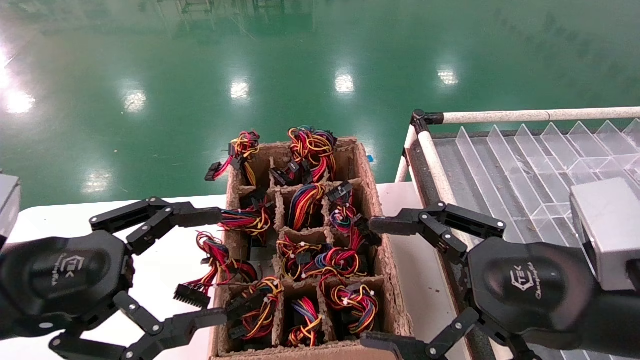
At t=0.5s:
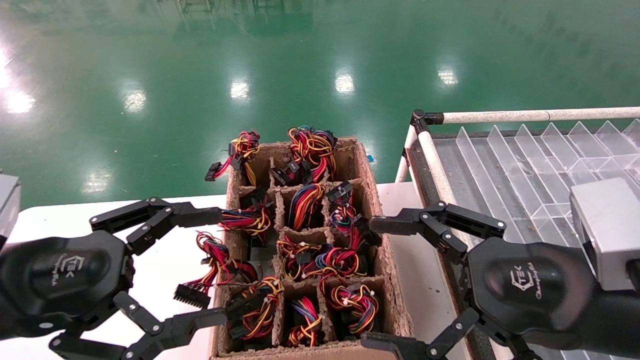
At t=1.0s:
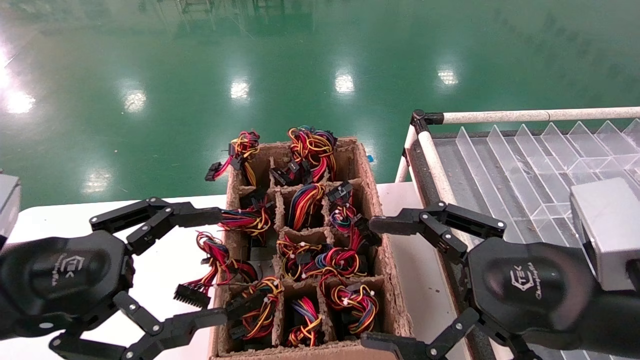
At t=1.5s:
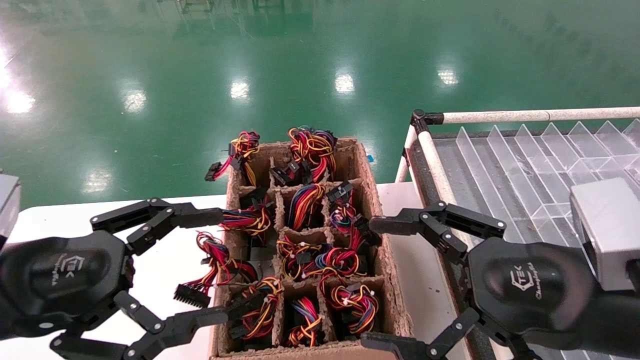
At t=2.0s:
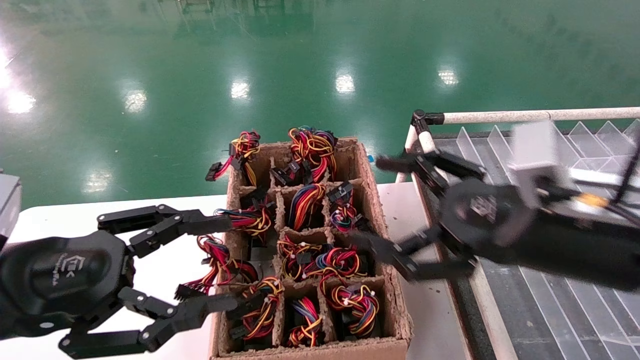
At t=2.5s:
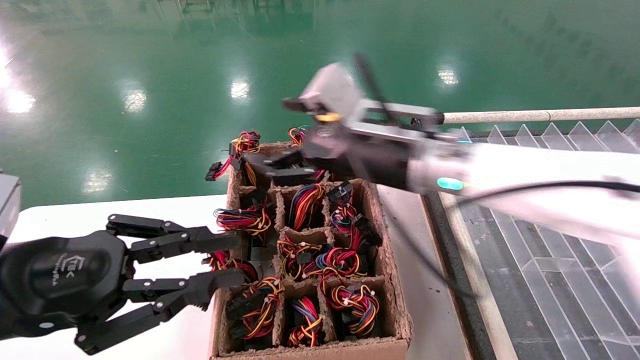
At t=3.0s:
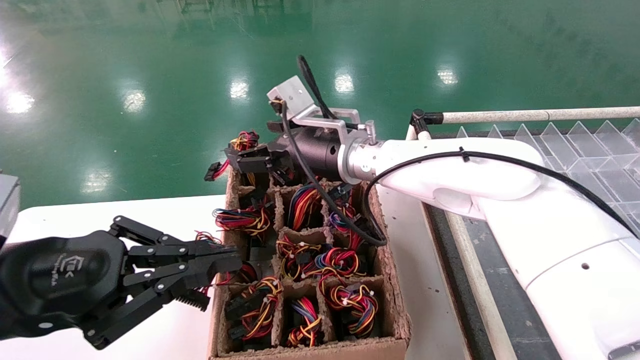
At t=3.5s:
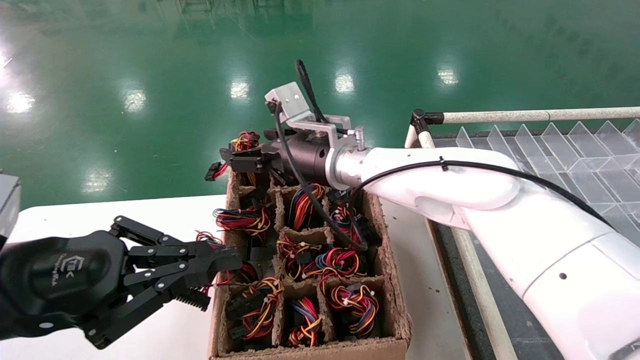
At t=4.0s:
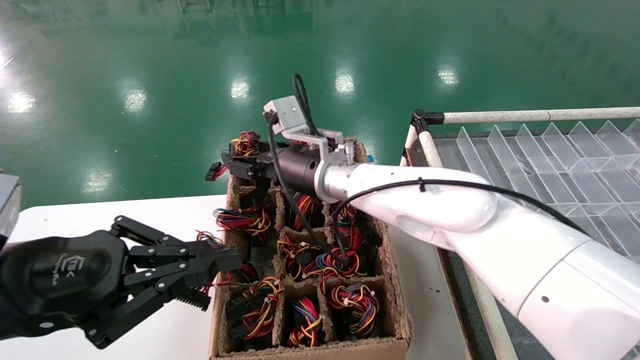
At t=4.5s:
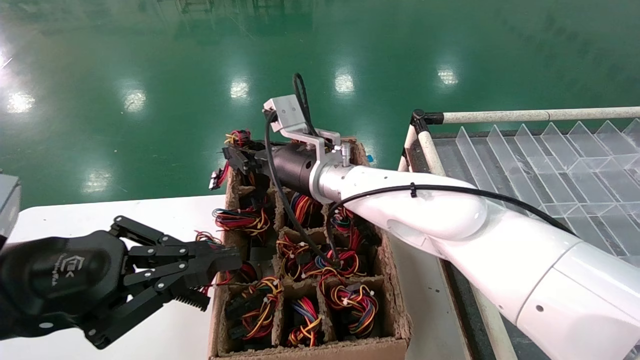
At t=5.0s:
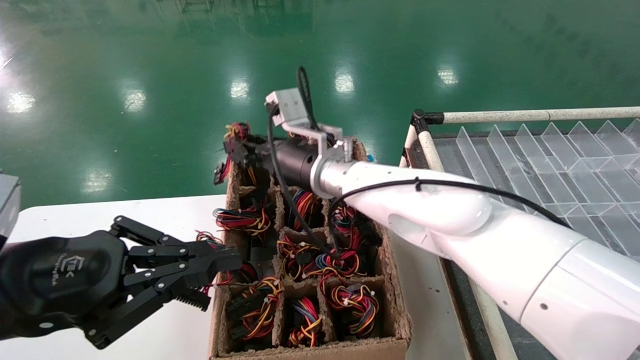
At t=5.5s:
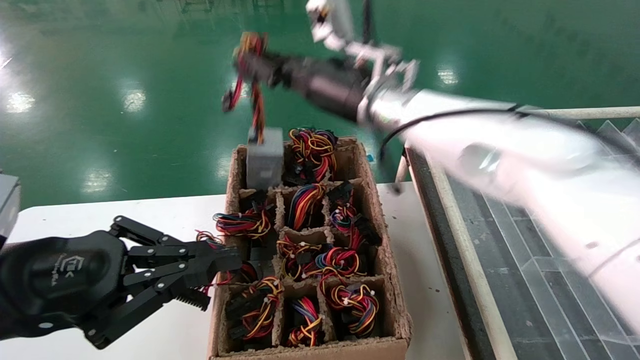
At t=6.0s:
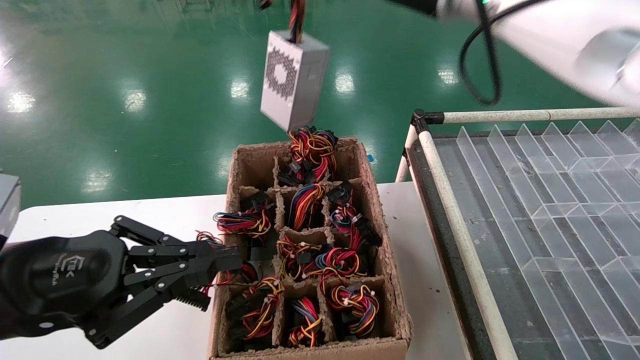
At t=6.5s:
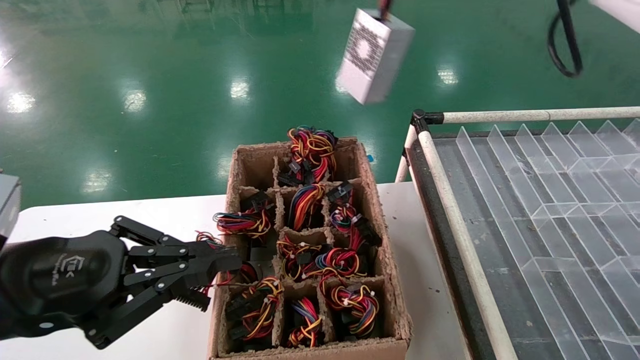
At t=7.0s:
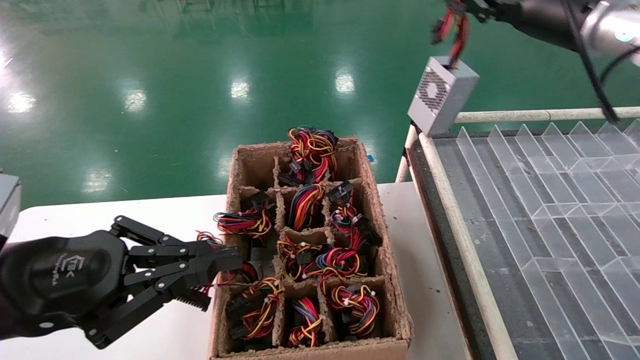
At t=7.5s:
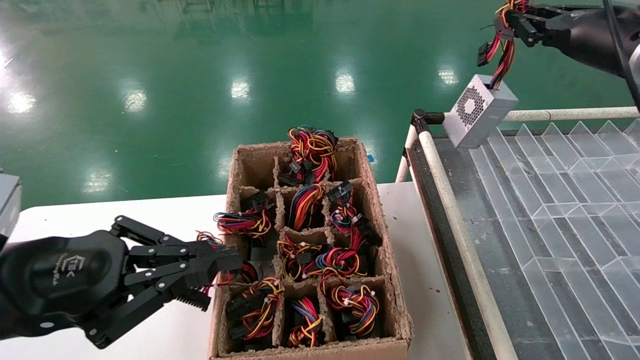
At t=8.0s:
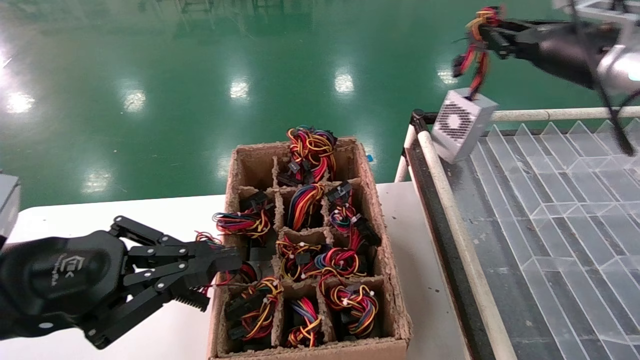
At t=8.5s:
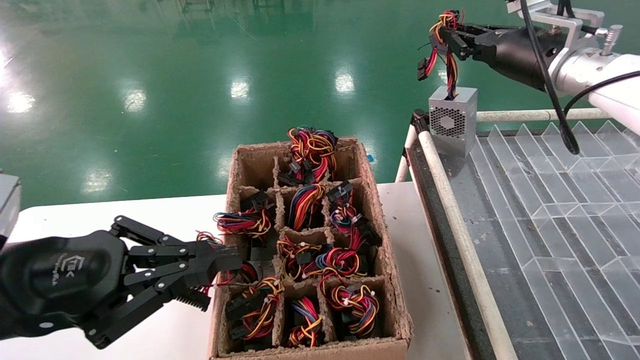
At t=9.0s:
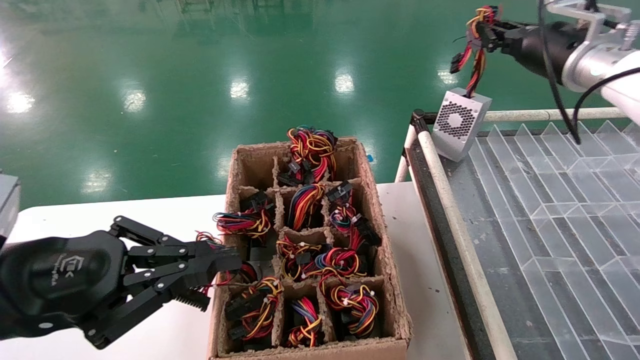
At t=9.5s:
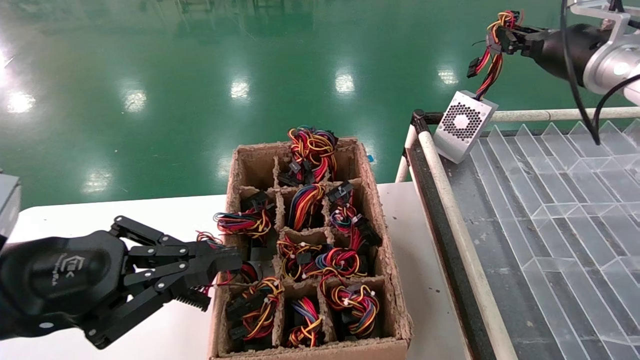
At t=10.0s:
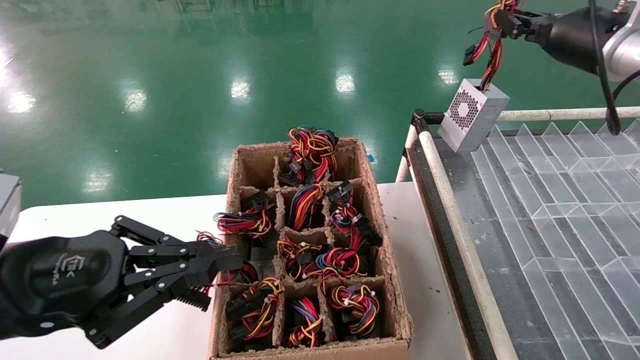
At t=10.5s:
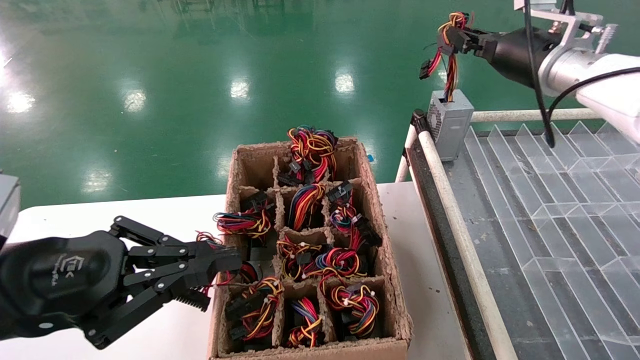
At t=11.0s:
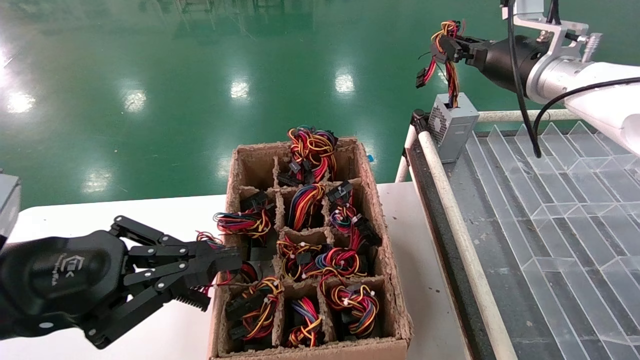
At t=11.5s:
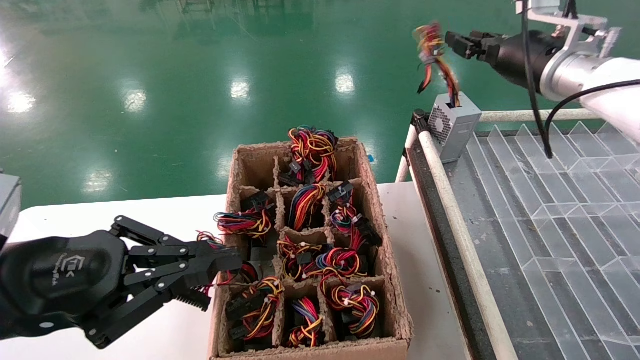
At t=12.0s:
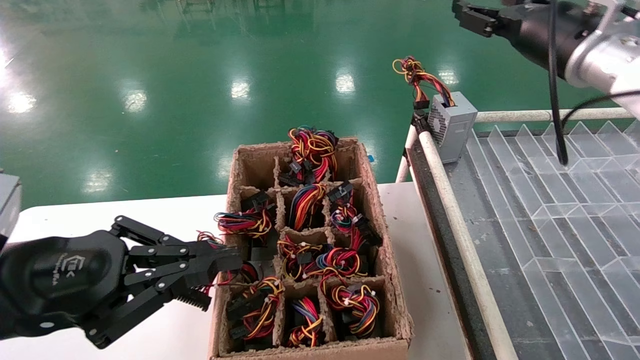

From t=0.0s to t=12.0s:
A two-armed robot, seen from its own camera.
Step, from t=2.5s to t=4.5s: Grab the main unit power supply from the containment box.
Step, from t=5.0s to t=11.5s: Place the main unit power supply in the designated area.
From t=0.0s to t=2.0s: The right gripper shifts some 5 cm forward.
From t=2.0s to t=4.0s: The left gripper closes up, while the right gripper travels to the left and forward by some 30 cm.
From t=4.0s to t=6.0s: The right gripper goes about 25 cm upward and to the right, and closes up.
From t=6.0s to t=8.0s: The right gripper goes about 25 cm to the right.
From t=8.0s to t=10.0s: The grippers move only a little.
From t=10.0s to t=12.0s: The right gripper goes approximately 5 cm to the left, and opens.

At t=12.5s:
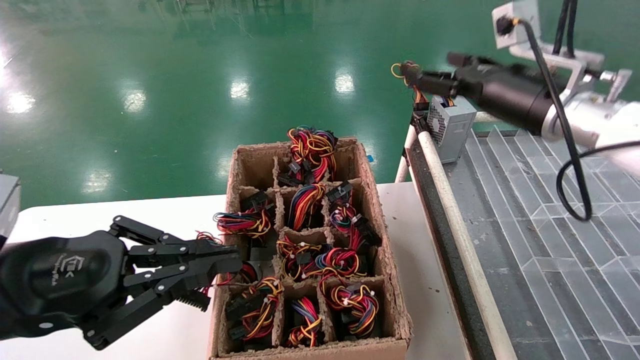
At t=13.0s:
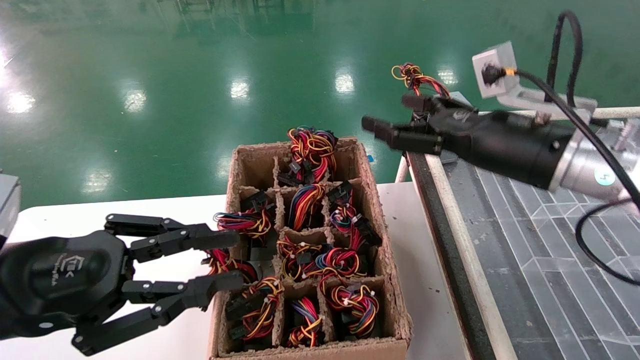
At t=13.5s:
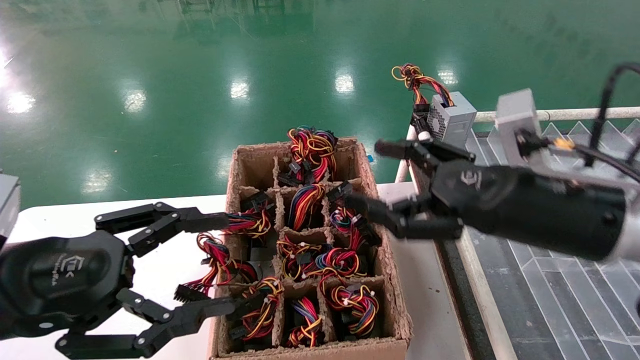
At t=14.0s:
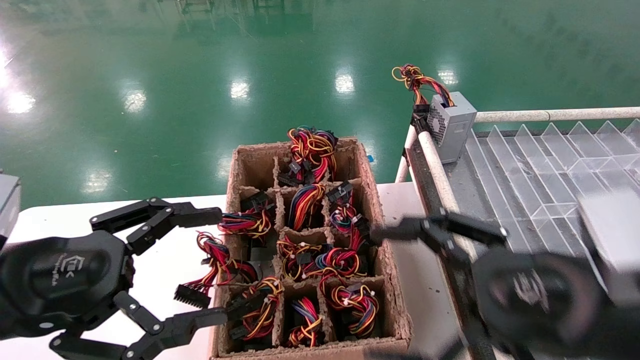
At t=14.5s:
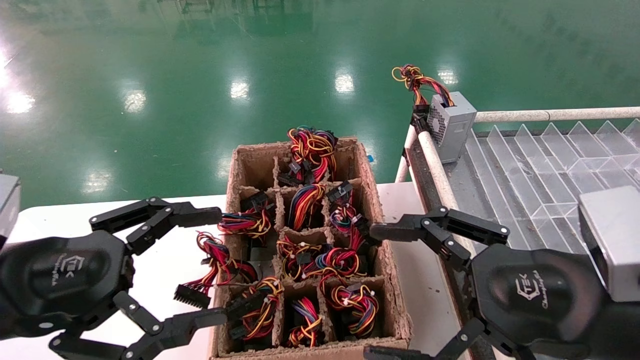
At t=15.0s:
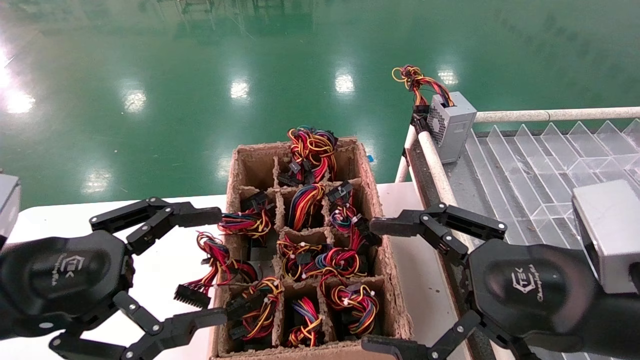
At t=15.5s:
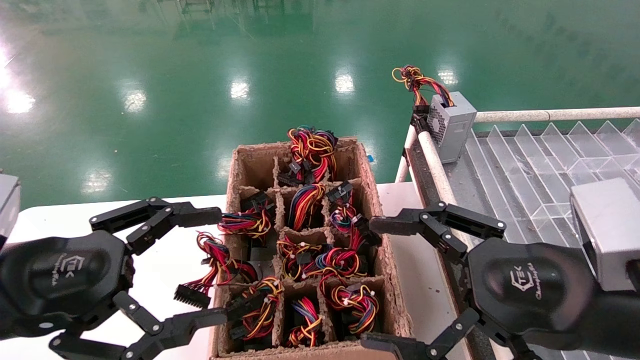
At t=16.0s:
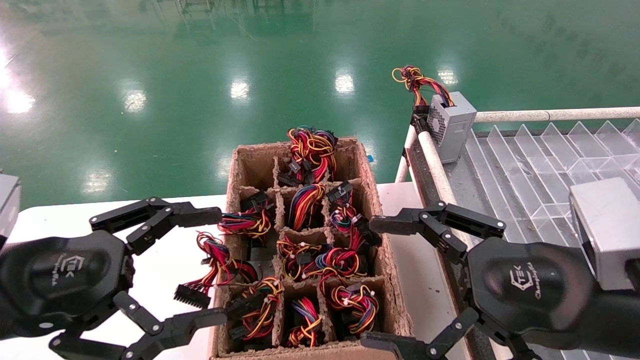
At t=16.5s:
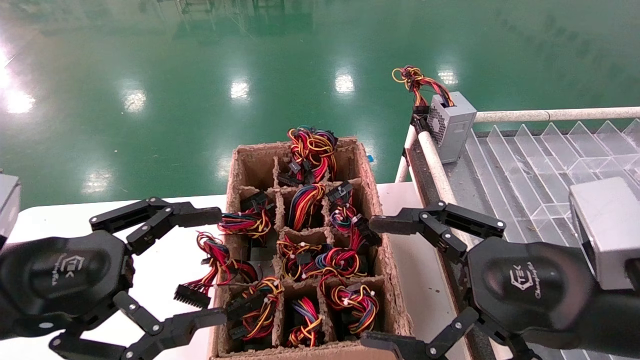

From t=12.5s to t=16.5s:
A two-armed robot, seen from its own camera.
From t=12.5s to t=14.5s: The left gripper opens; the right gripper shifts approximately 25 cm backward and downward.
From t=14.5s to t=16.5s: The two grippers keep their place.

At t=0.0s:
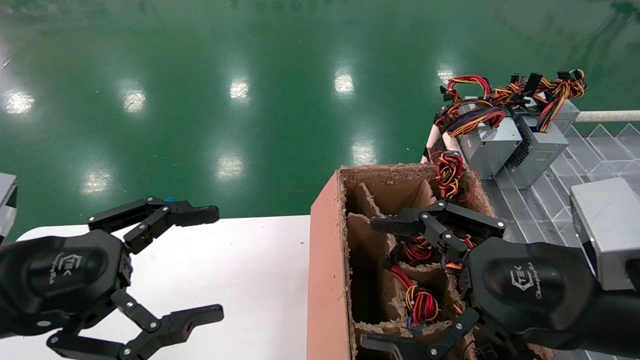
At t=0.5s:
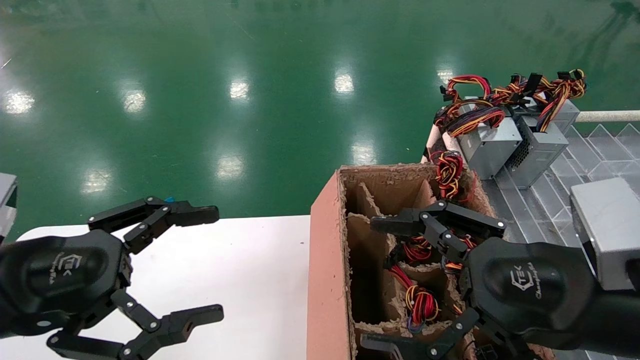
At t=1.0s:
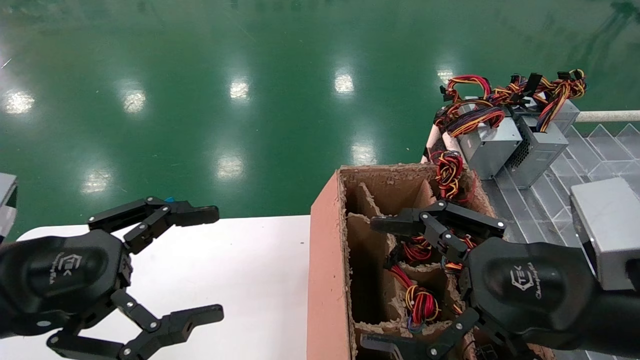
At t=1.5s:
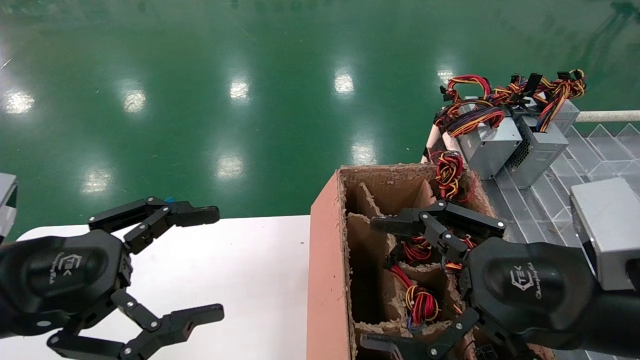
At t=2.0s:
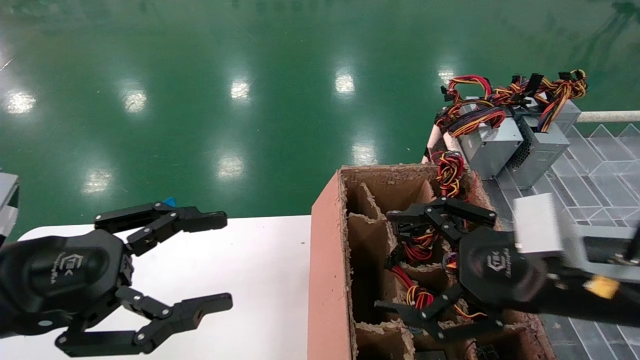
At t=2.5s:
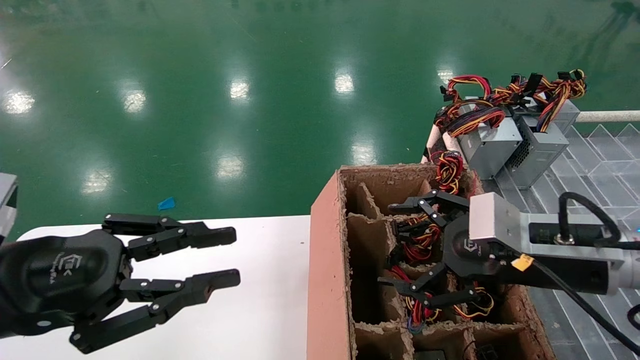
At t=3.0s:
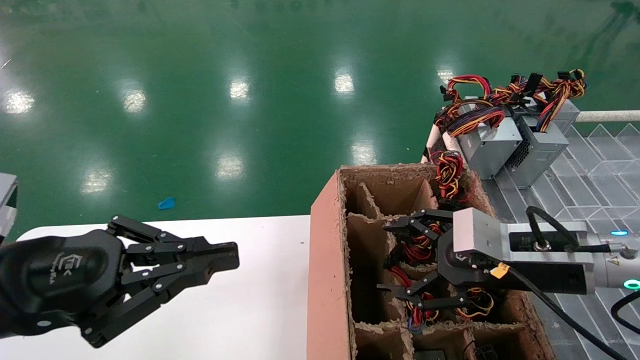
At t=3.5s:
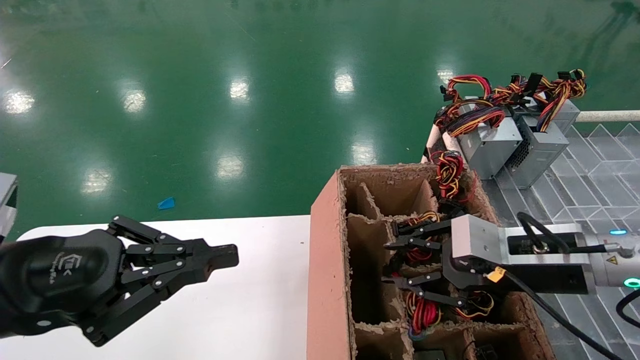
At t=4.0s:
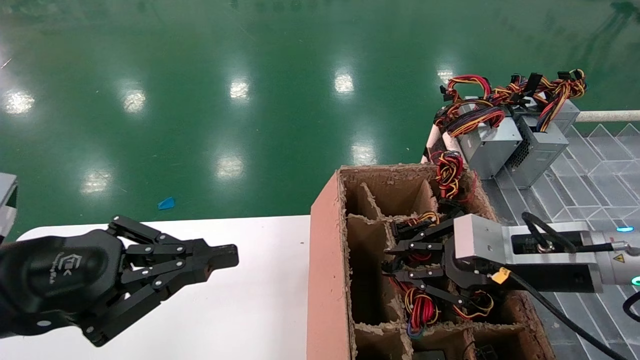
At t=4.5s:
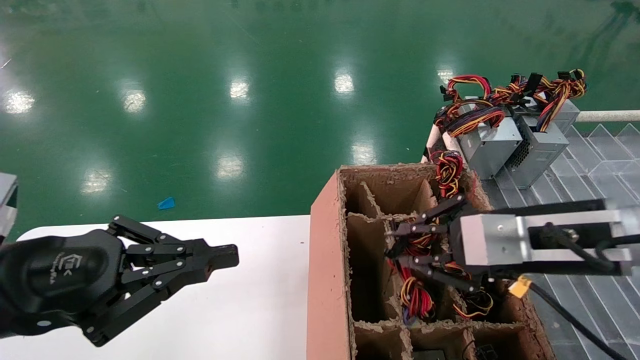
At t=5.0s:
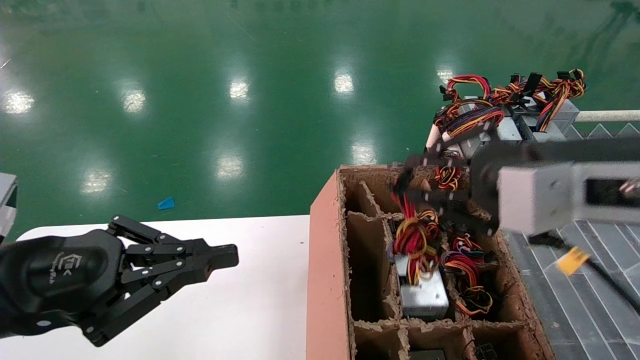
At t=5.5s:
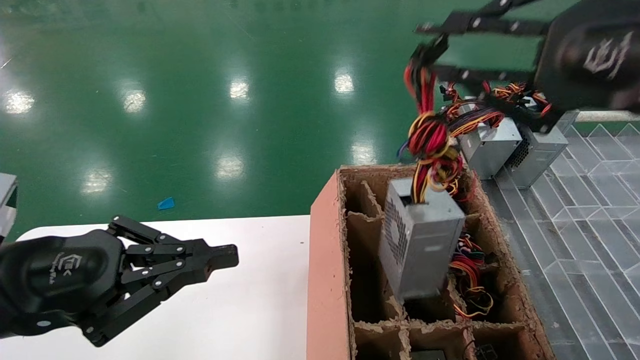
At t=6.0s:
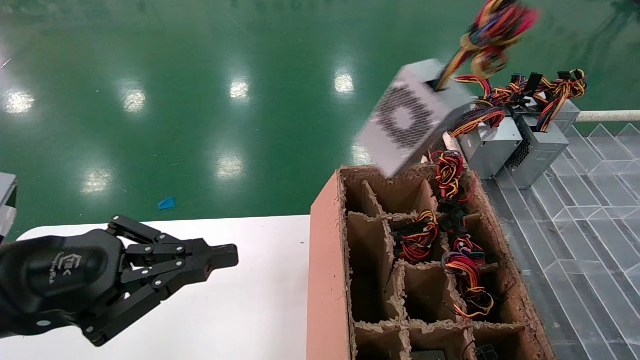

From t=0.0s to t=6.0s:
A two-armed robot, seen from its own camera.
Step, from t=2.5s to t=4.0s: Grab the main unit power supply from the containment box.
From t=0.0s to t=2.0s: The right gripper ends up about 5 cm from where it was.
From t=2.0s to t=4.0s: The left gripper closes up. Meanwhile the right gripper goes some 5 cm forward, and closes its fingers.
From t=4.0s to t=6.0s: The right gripper is displaced upward and backward by about 30 cm.
